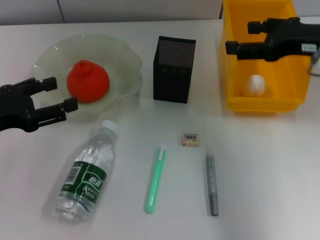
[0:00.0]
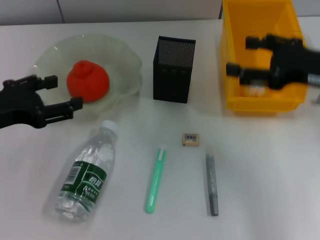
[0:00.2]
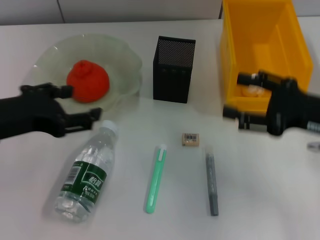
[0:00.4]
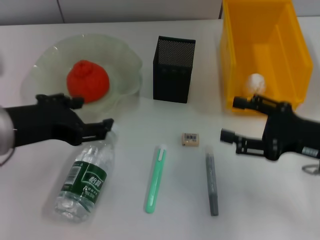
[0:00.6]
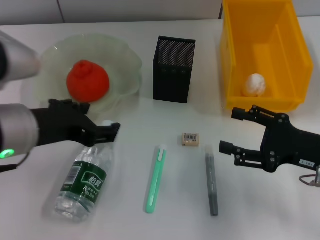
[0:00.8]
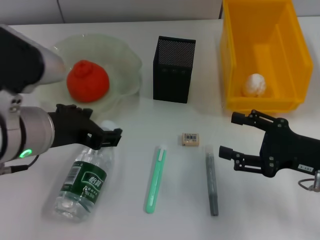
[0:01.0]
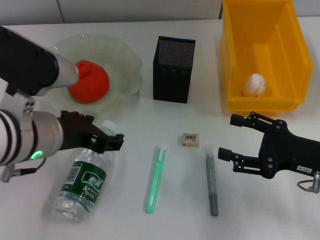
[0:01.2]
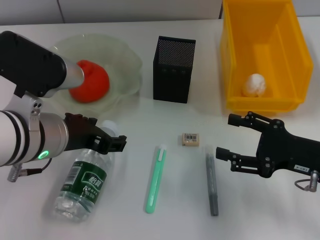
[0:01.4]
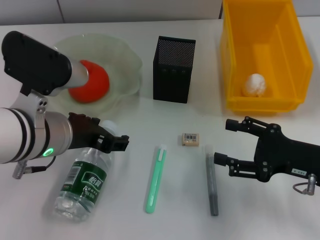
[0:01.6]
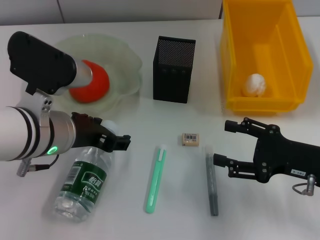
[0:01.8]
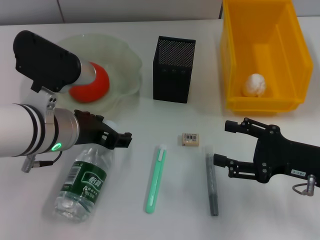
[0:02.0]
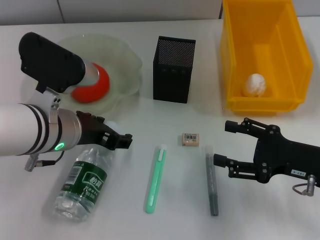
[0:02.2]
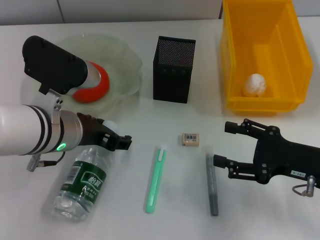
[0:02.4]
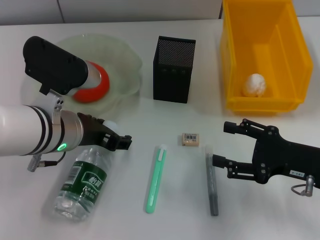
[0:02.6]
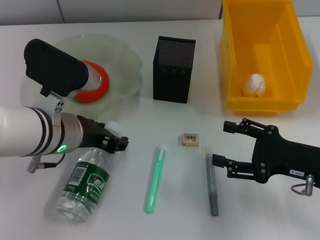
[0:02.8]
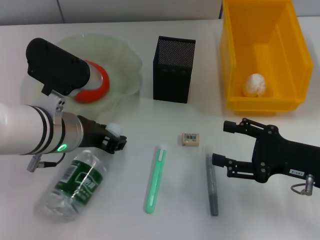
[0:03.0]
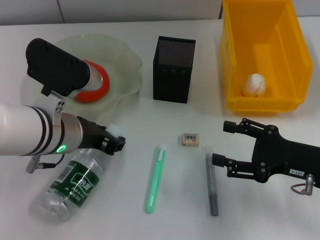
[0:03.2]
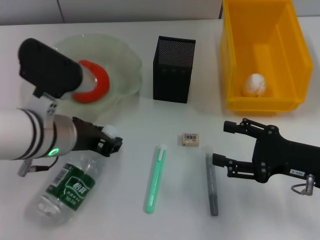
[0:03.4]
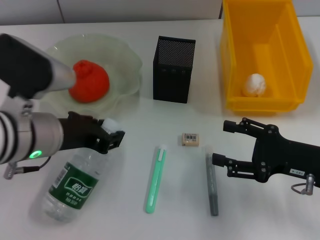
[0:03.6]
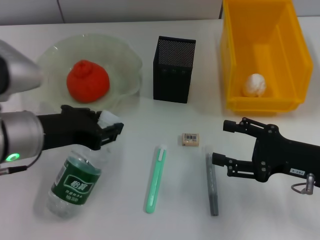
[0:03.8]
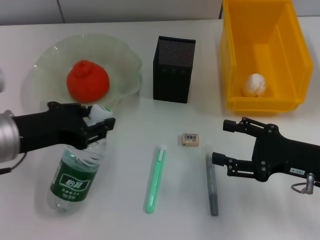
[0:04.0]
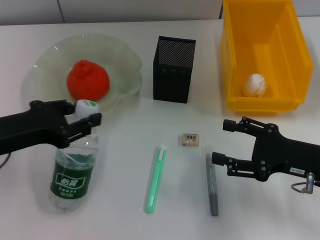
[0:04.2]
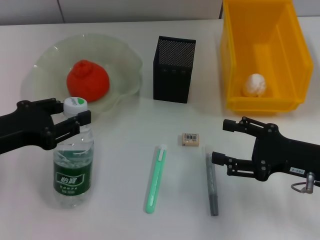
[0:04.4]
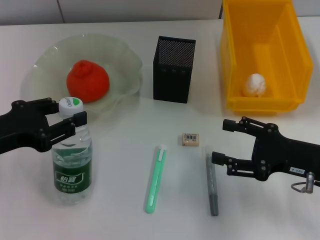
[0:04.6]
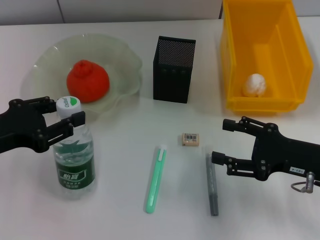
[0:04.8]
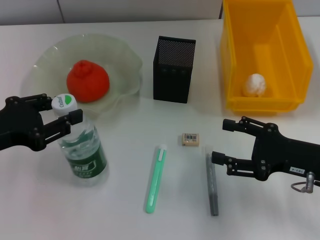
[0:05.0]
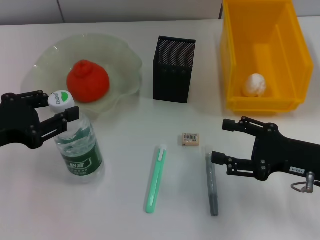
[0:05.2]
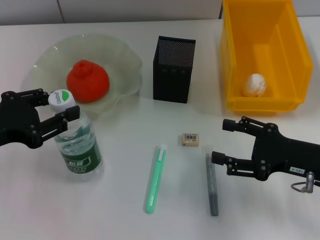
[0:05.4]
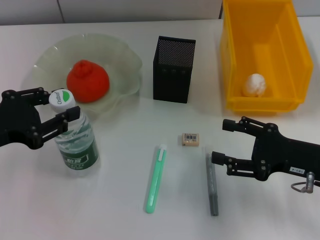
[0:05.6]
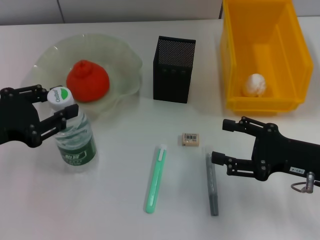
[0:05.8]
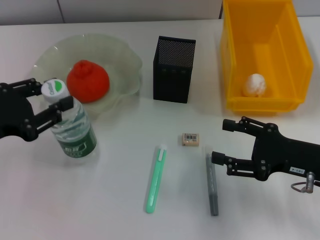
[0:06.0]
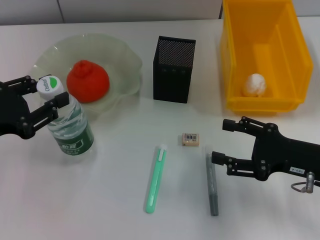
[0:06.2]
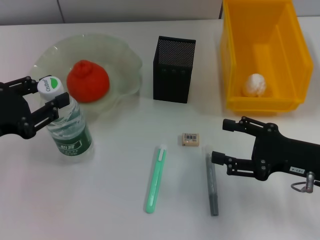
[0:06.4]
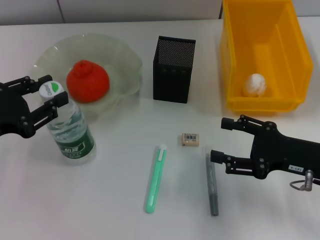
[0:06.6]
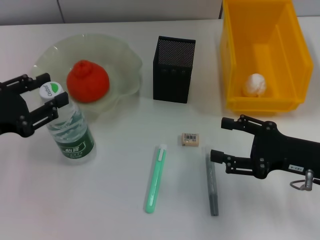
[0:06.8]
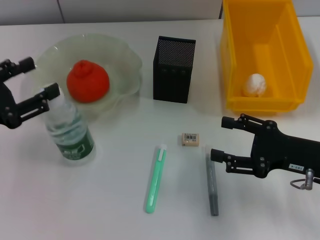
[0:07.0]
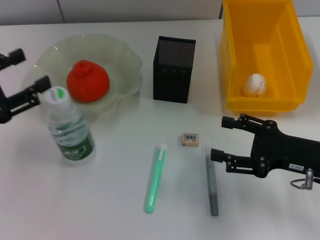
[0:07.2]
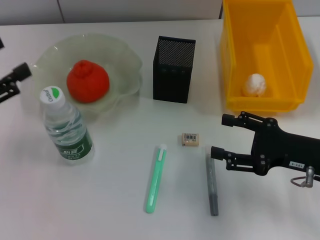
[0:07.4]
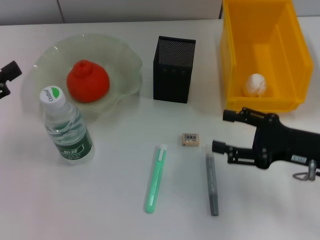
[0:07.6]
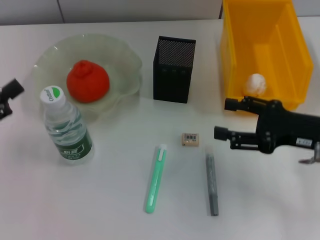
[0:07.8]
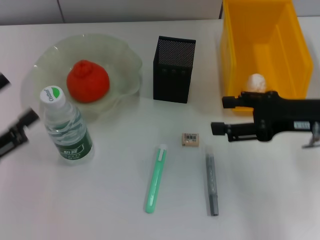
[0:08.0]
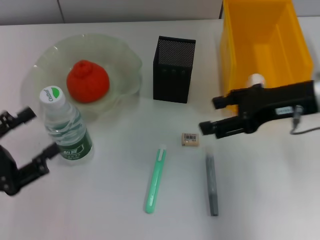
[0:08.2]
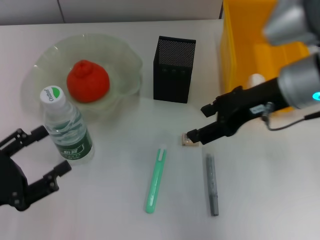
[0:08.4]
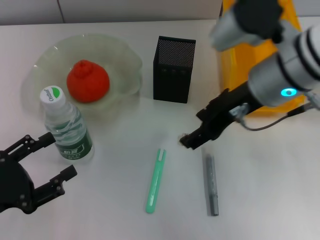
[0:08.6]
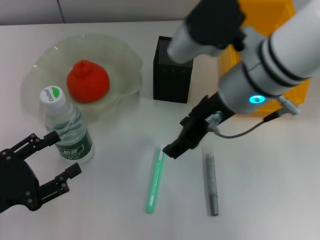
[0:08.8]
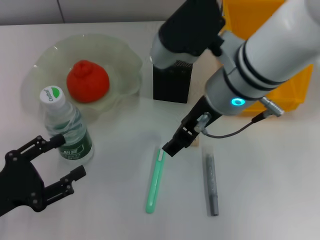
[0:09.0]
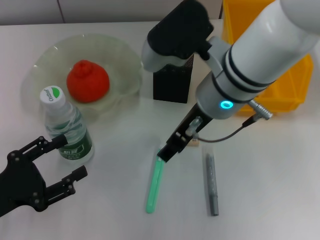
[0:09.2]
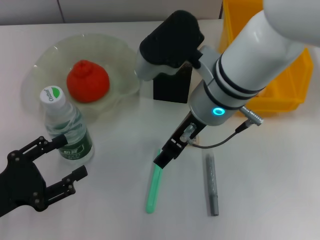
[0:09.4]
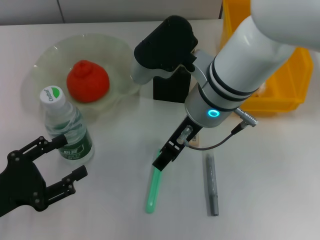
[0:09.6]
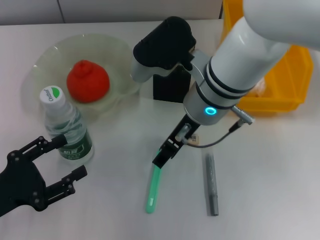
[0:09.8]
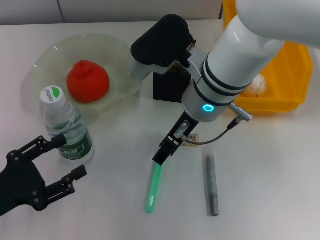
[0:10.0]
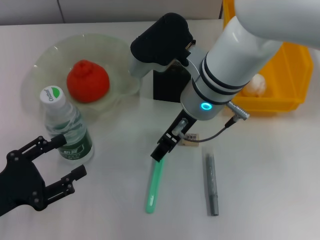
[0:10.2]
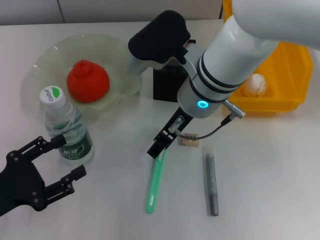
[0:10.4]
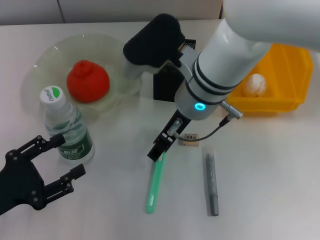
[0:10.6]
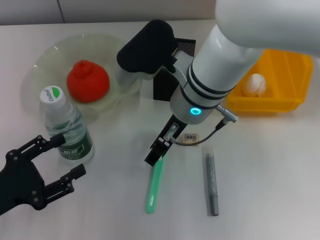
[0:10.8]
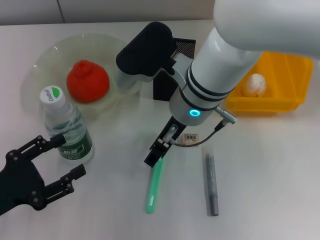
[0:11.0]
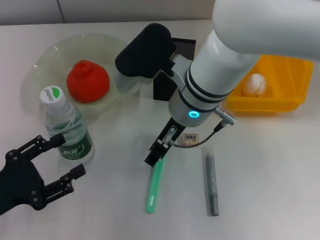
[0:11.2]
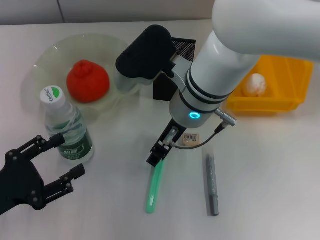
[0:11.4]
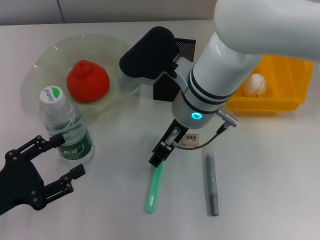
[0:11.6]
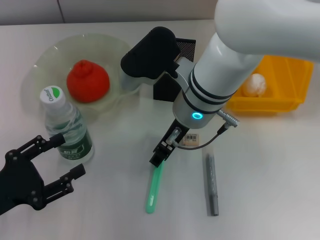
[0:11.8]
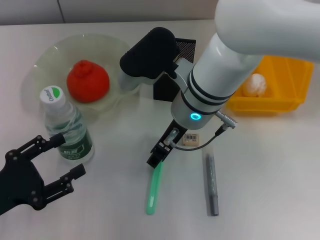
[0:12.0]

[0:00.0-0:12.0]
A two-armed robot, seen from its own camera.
Step, 0:00.0 to 0:03.0: Grab the water bottle with the left hand.
Step, 0:03.2 to 0:07.2: Place the water bottle on the table with the left hand.
0:00.0 to 0:01.6: The left gripper is displaced to the right by some 15 cm; the right gripper goes roughly 15 cm downward and backward.
0:01.6 to 0:03.0: The grippers move only a little.
0:03.0 to 0:04.4: The left gripper heads to the left and backward, covering approximately 15 cm.
0:04.4 to 0:06.0: The grippers move only a little.
0:06.0 to 0:07.6: The left gripper changes place by about 5 cm, and opens its fingers.
0:07.6 to 0:09.0: The right gripper travels to the left and upward by approximately 20 cm, while the left gripper heads downward, covering about 10 cm.
0:09.0 to 0:10.4: The right gripper changes place by some 5 cm.
0:10.4 to 0:12.0: The grippers make only small movements.

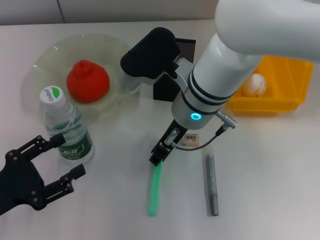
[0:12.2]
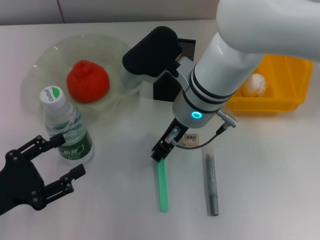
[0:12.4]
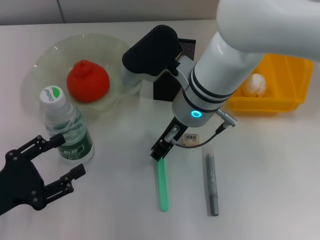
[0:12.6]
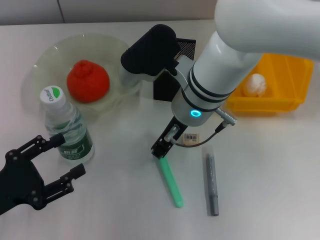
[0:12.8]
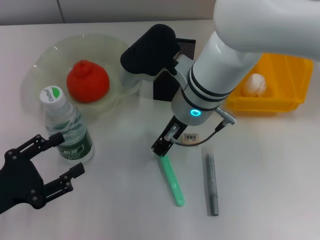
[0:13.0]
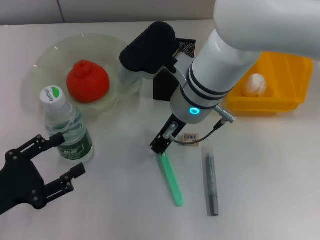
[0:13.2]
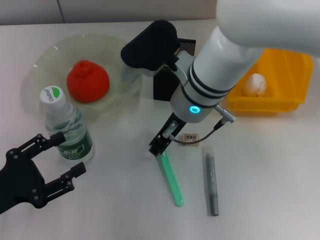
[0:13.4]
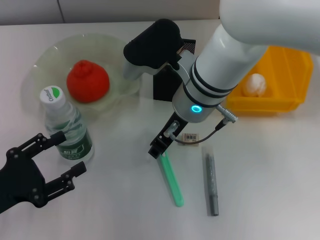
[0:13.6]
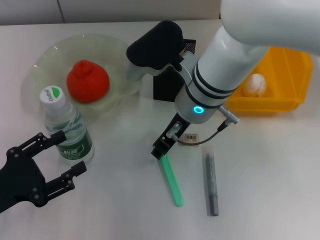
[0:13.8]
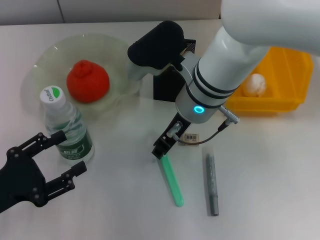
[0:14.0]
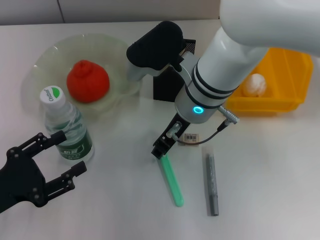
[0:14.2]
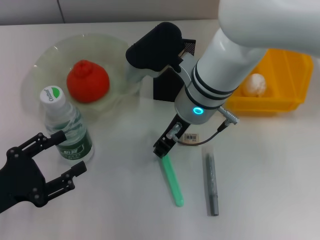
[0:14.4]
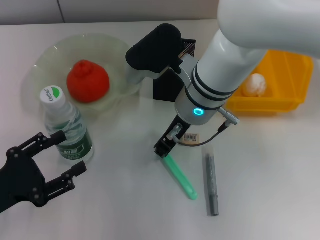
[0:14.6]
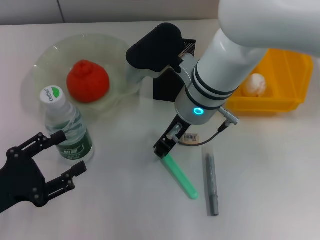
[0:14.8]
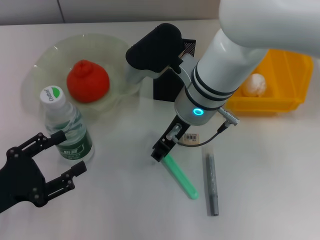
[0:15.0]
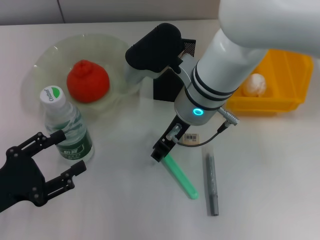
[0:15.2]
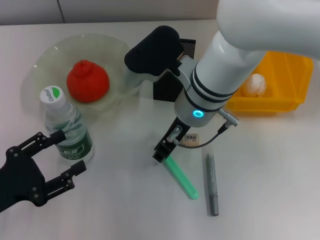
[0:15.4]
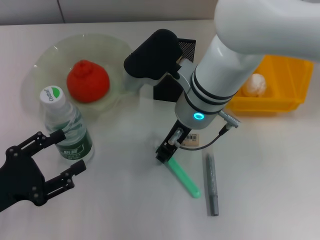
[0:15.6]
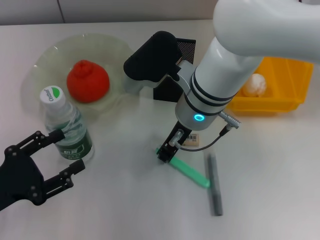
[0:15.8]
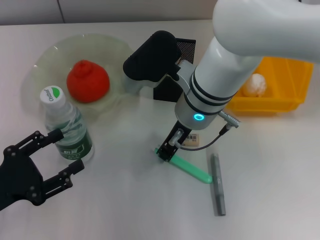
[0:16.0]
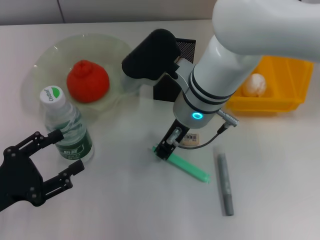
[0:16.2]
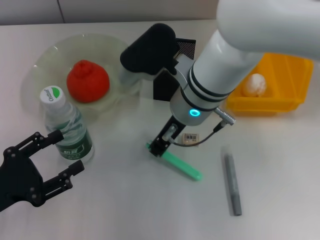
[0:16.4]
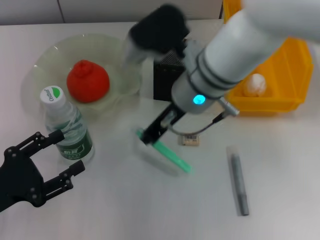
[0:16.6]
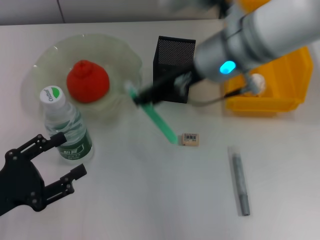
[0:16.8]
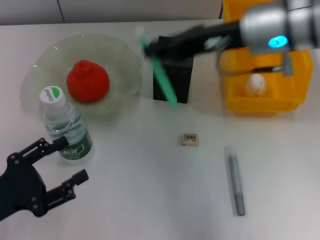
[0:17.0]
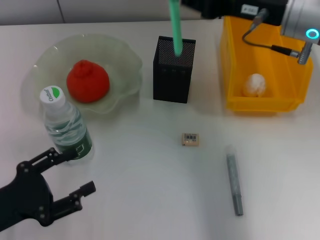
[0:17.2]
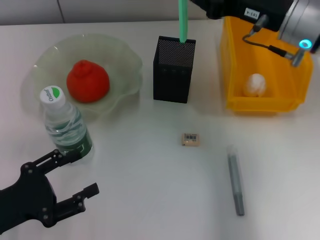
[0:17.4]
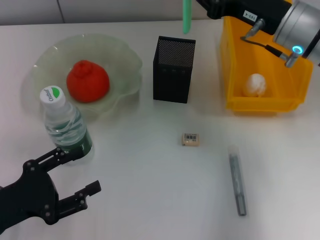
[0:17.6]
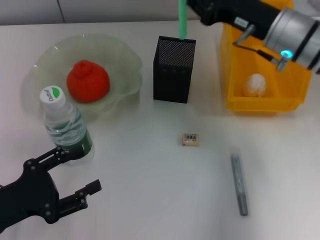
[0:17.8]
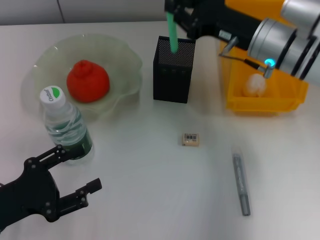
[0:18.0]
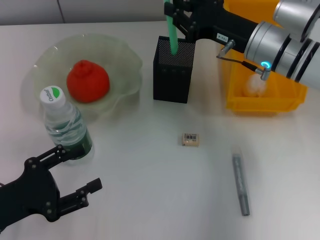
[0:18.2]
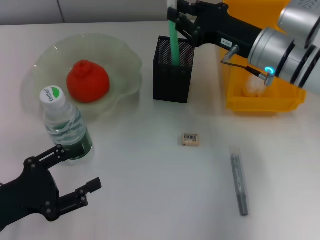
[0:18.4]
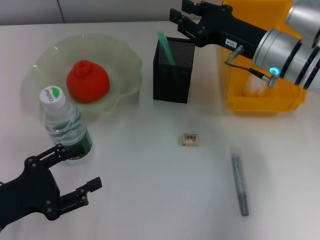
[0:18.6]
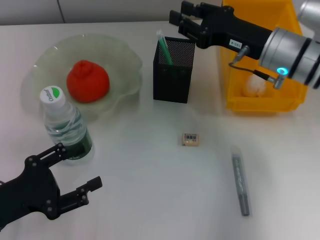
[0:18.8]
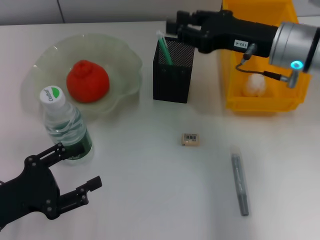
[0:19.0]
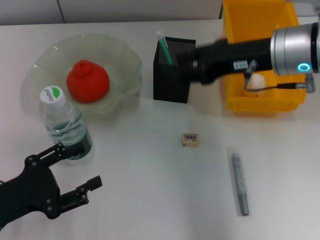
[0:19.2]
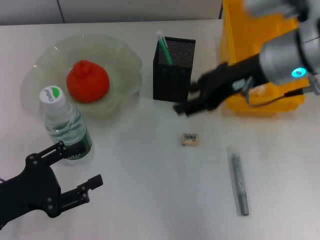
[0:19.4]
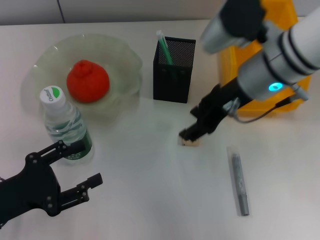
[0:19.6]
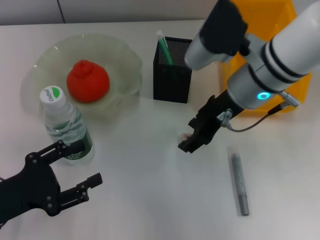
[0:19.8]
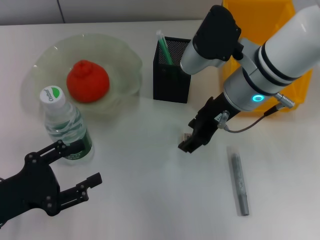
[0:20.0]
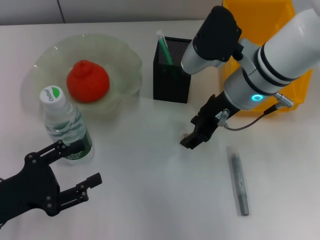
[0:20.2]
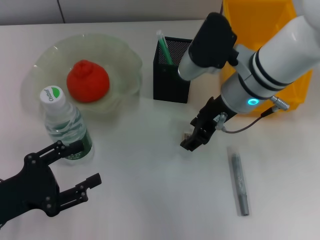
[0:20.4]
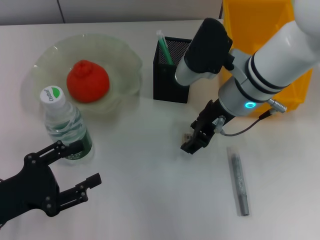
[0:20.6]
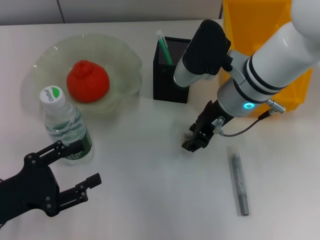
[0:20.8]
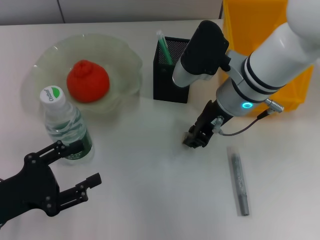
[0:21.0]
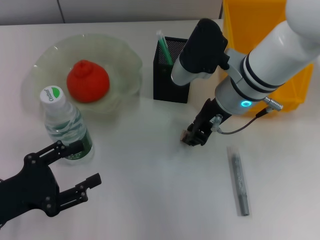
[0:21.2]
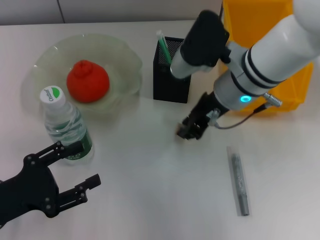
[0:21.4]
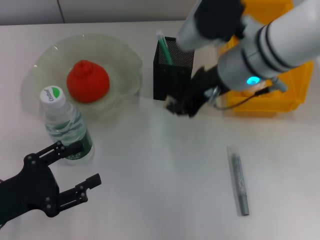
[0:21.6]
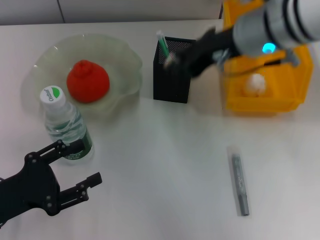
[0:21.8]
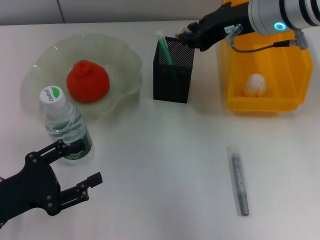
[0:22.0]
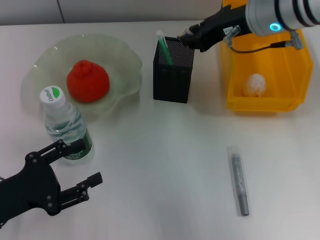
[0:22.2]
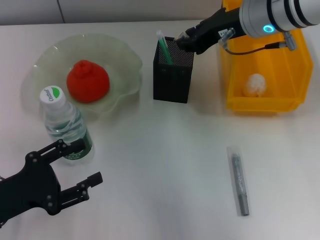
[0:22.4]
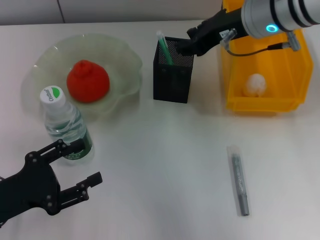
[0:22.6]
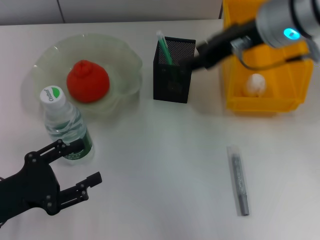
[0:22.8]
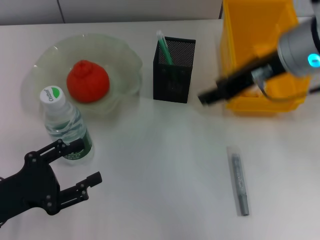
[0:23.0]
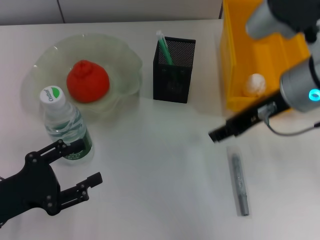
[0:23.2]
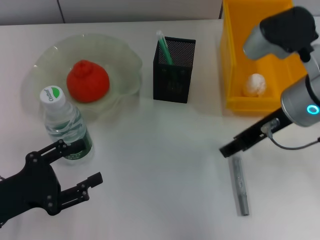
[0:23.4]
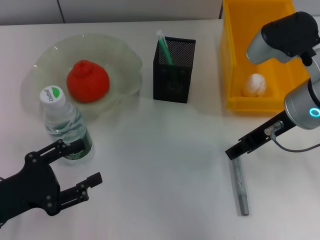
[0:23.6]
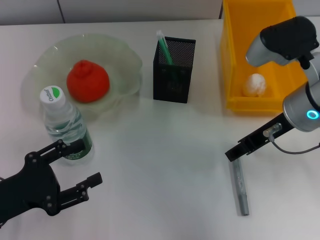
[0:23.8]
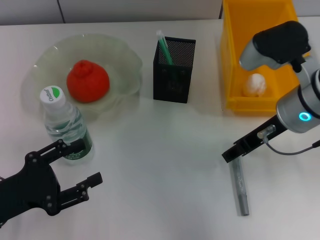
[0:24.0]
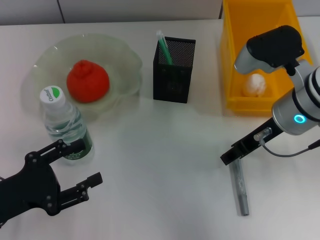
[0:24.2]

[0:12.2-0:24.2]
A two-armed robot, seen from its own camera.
Step, 0:12.2 to 0:16.2: Grab the blue utility knife with the right hand.
Step, 0:16.4 to 0:18.8: Place the blue utility knife into the pen holder with the right hand.
Step, 0:19.0 to 0:20.8: Grab the eraser with the right hand.
Step, 0:21.0 to 0:22.8: Put the eraser into the pen holder with the right hand.
0:12.2 to 0:15.2: Both grippers stay about where they are.
0:15.2 to 0:16.6: The right gripper closes.
0:16.6 to 0:18.2: The right gripper heads to the right, covering some 10 cm.
0:18.2 to 0:19.8: The right gripper heads to the left, covering some 5 cm, and opens up.
0:19.8 to 0:21.2: The right gripper closes.
0:21.2 to 0:22.6: The right gripper moves upward, roughly 10 cm.
0:22.6 to 0:24.2: The right gripper shifts approximately 10 cm downward and backward.
